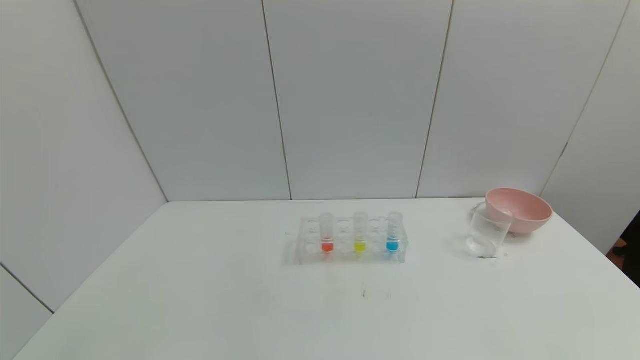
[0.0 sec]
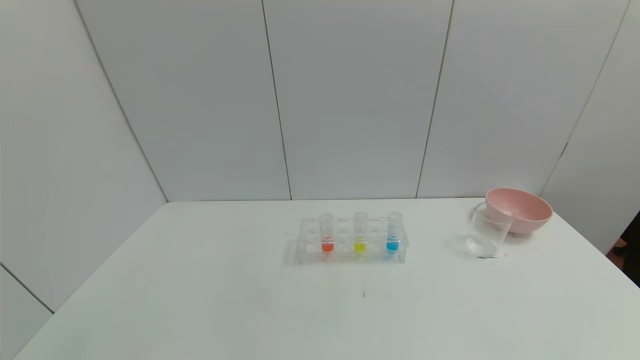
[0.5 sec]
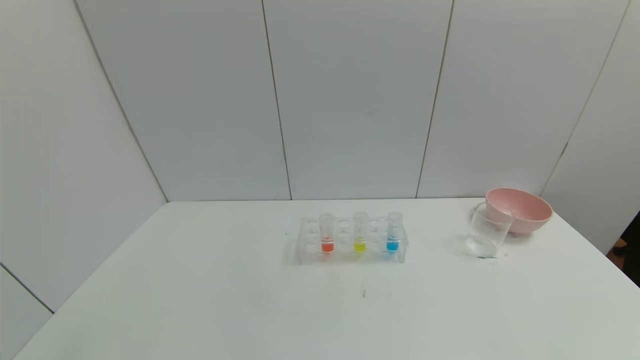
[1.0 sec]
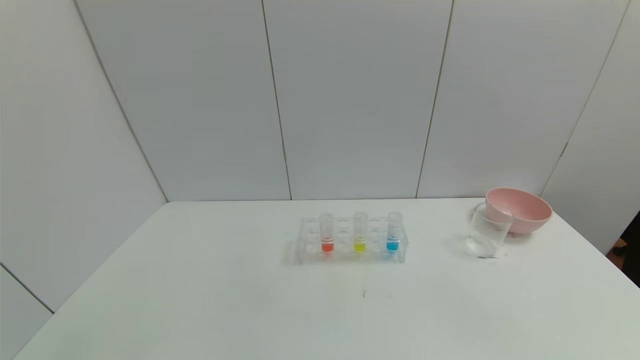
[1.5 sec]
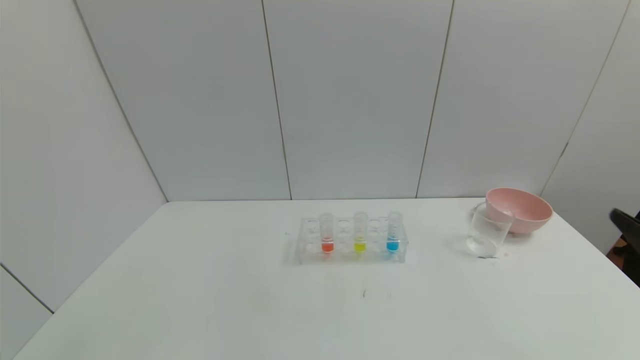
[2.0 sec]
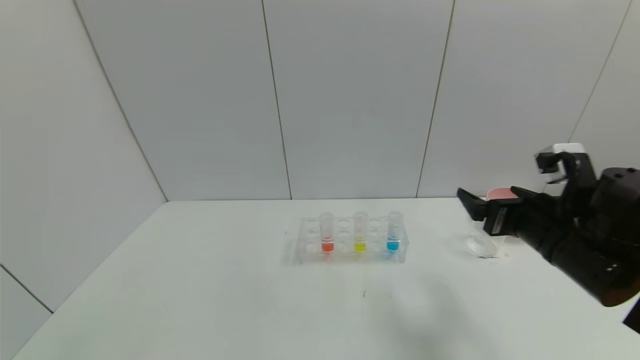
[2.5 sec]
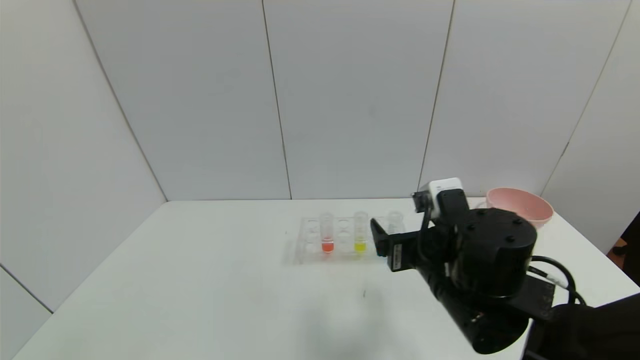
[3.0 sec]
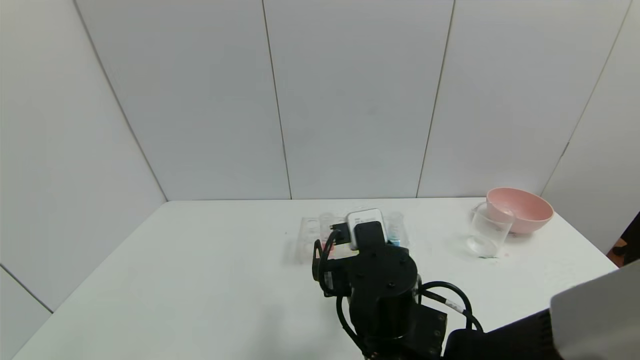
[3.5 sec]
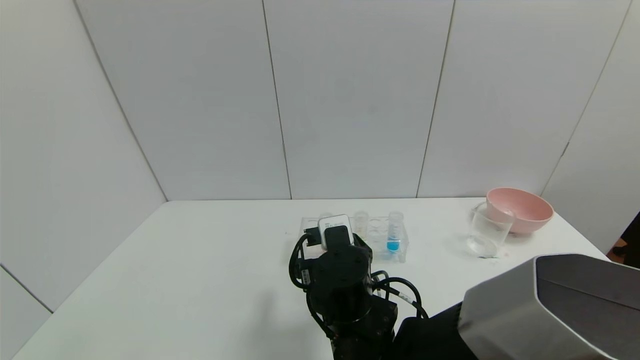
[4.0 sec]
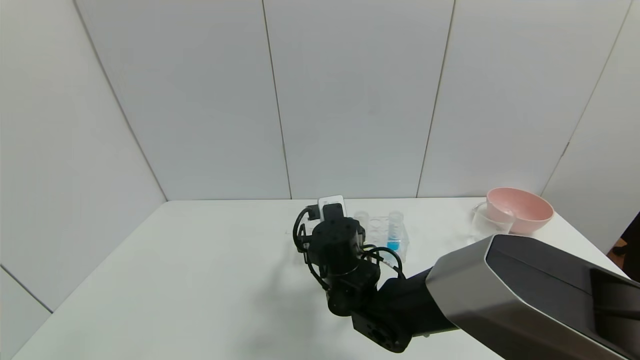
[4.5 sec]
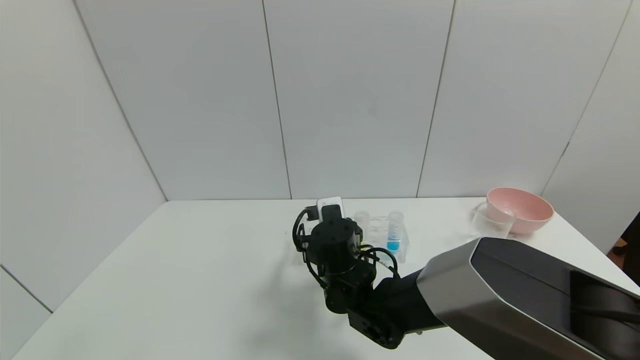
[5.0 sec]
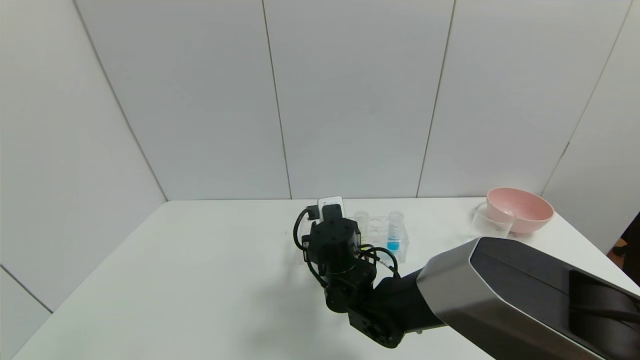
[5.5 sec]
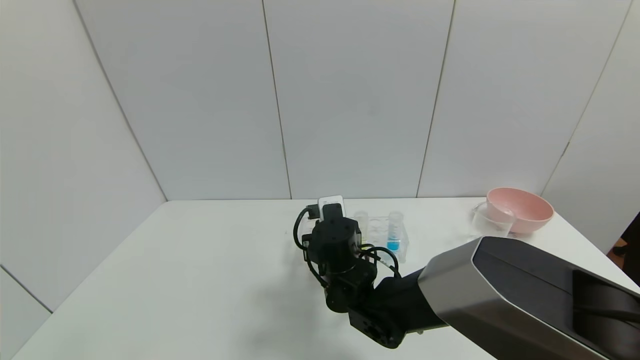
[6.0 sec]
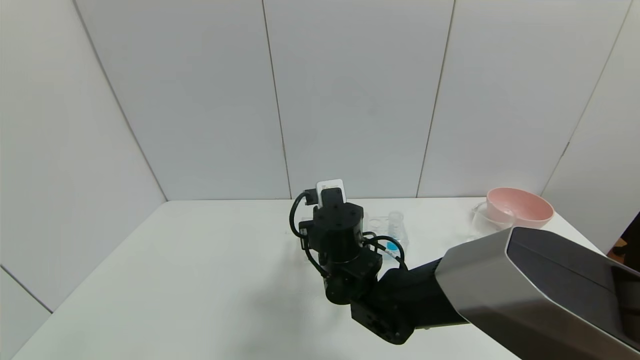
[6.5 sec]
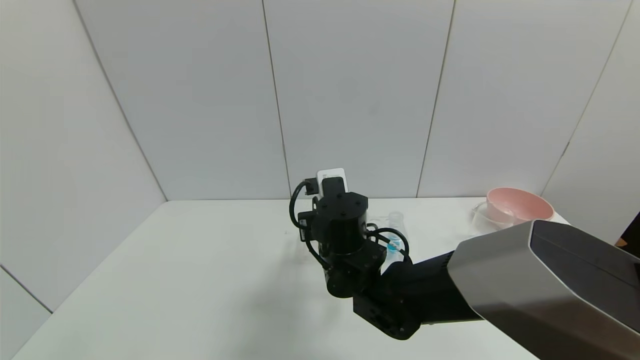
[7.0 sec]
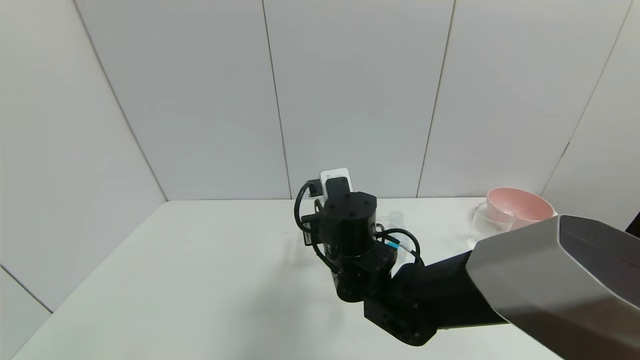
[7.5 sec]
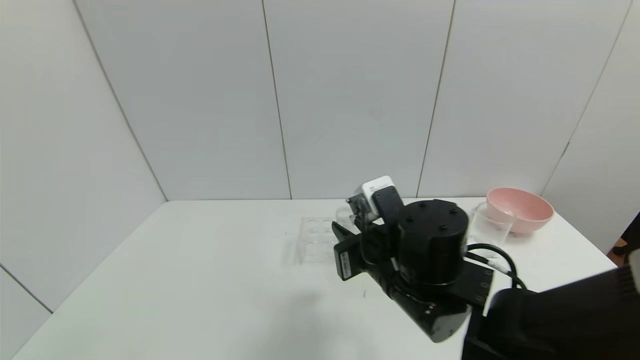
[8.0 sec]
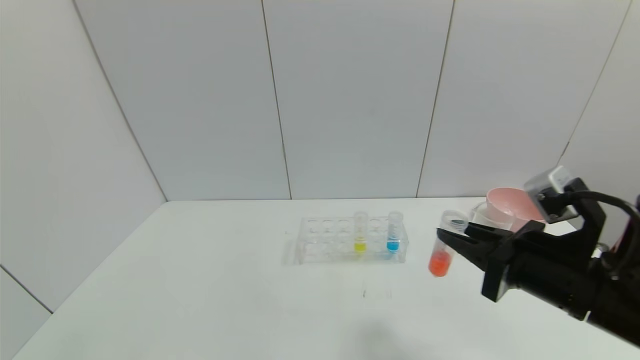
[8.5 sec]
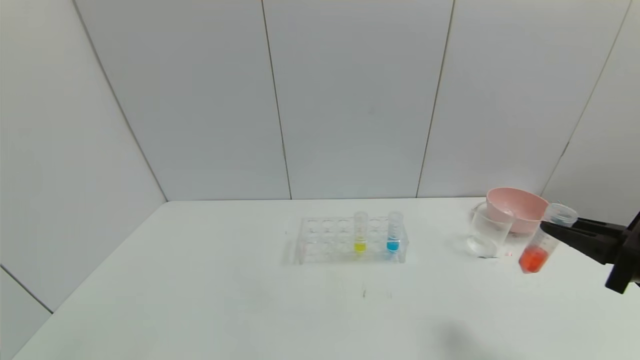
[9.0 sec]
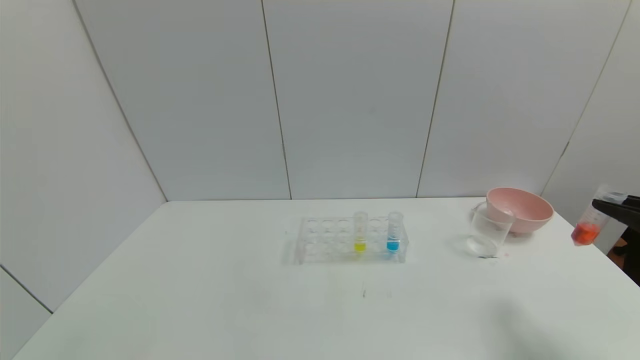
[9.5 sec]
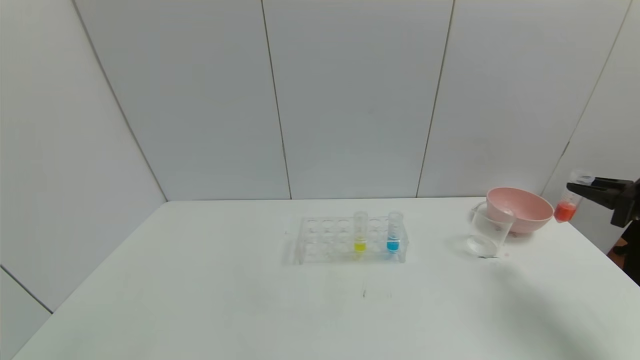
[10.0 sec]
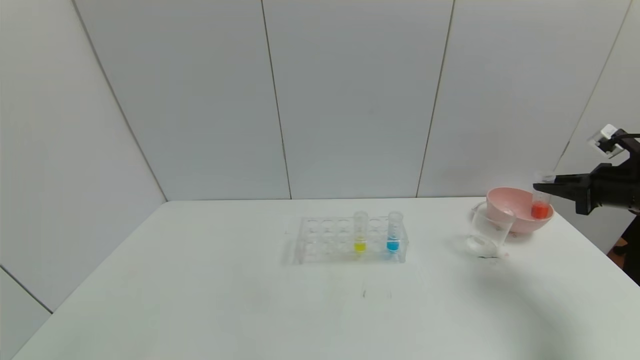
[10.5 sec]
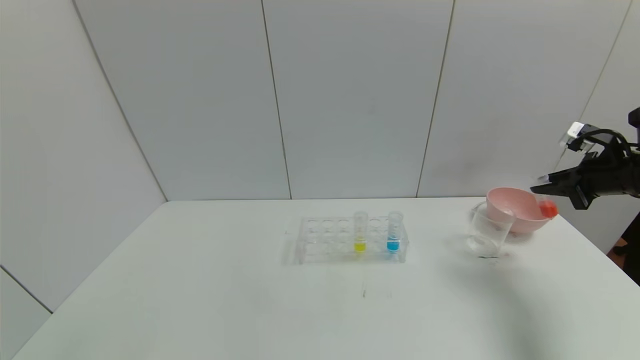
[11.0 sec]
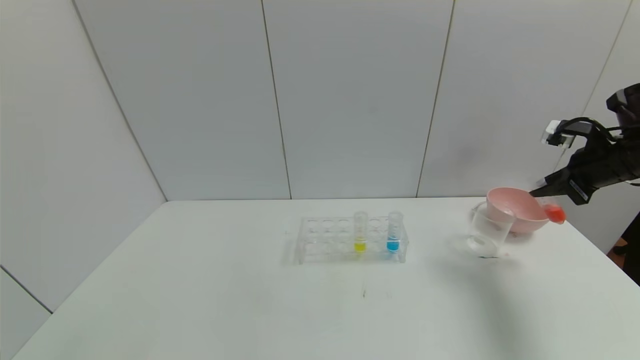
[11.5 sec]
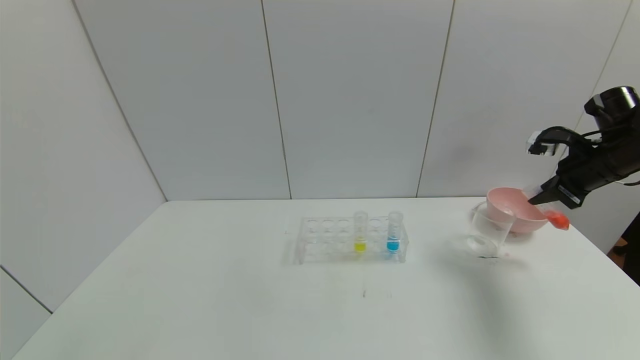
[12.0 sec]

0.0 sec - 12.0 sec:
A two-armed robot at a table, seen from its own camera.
Task of the whole recording: pick up the test tube with red pigment and the test tube with blue pigment by grippers and pour them into the container.
Step, 0.0 sec - 5.5 sec: Grasp the red reagent with the right gripper.
2.0 sec - 4.0 sec: The right gripper shifts roughly 35 cm to the left and forward.
4.0 sec - 6.0 sec: The right gripper goes some 5 cm forward, and closes its fingers.
6.0 sec - 8.0 sec: The right gripper travels to the right, backward and upward by approximately 15 cm.
8.0 sec - 10.0 sec: The right gripper travels to the right by about 40 cm.
10.0 sec - 12.0 sec: The right gripper goes some 10 cm forward and to the left.

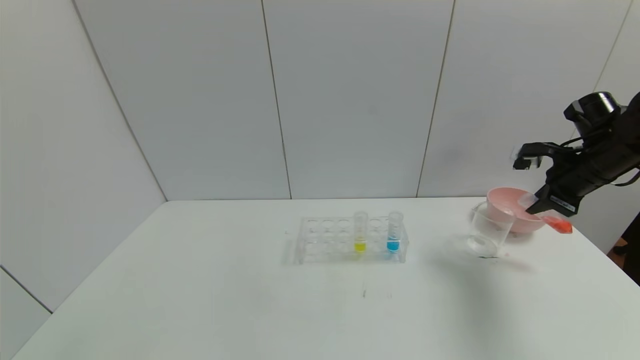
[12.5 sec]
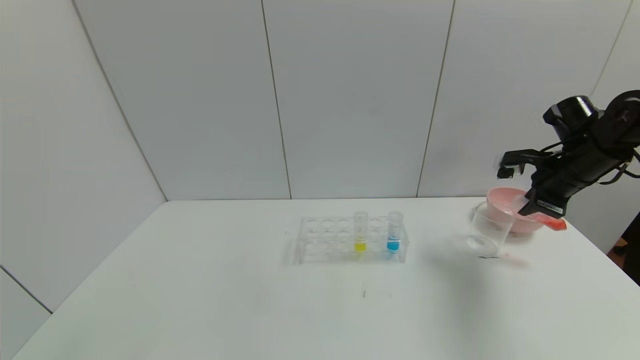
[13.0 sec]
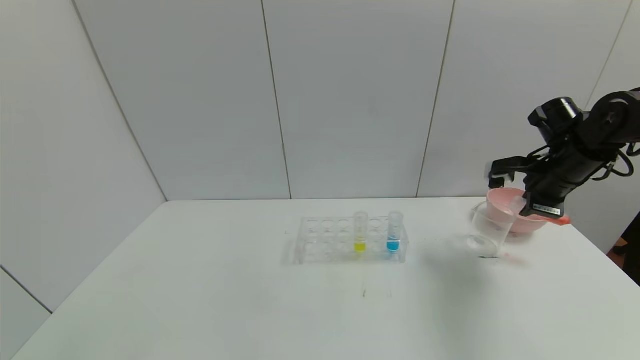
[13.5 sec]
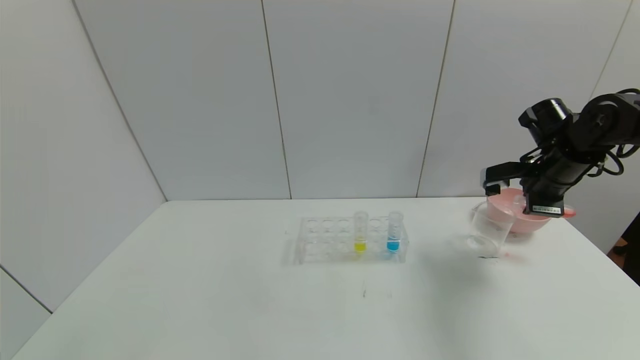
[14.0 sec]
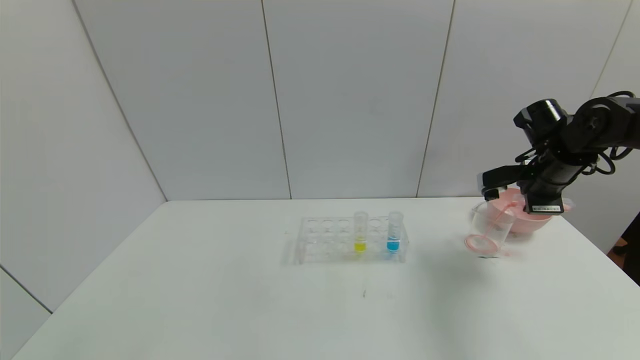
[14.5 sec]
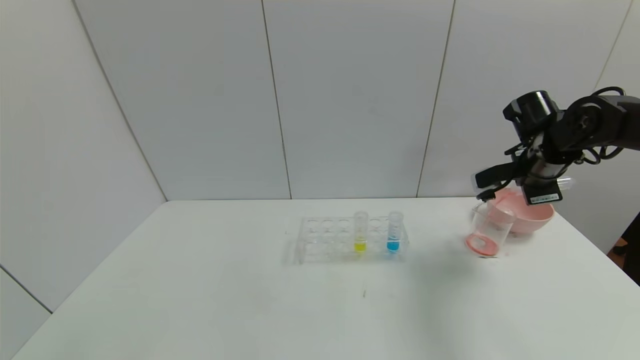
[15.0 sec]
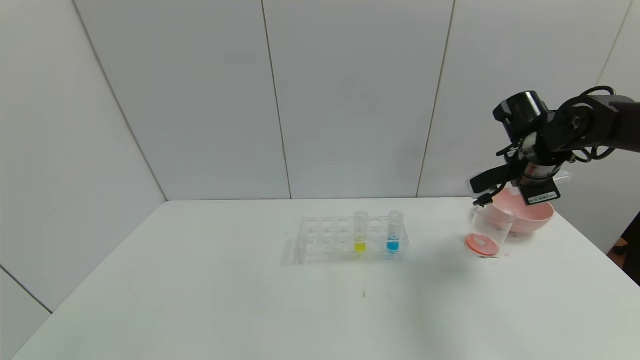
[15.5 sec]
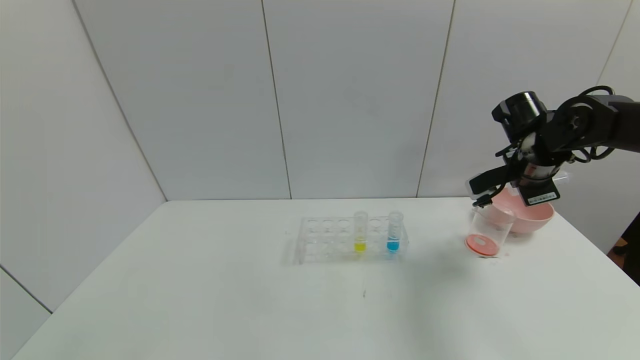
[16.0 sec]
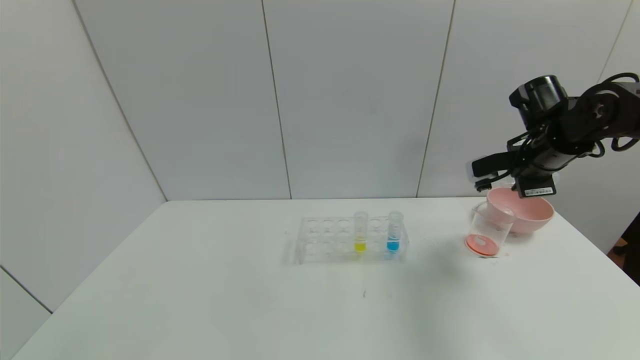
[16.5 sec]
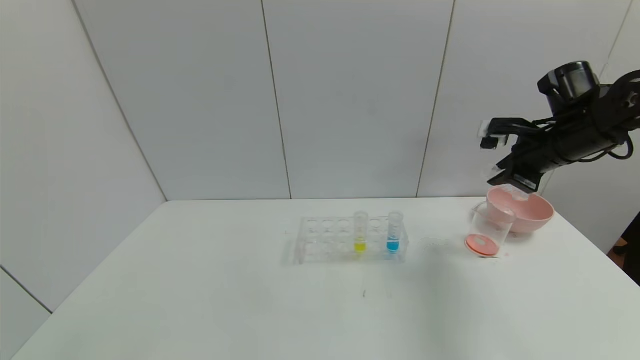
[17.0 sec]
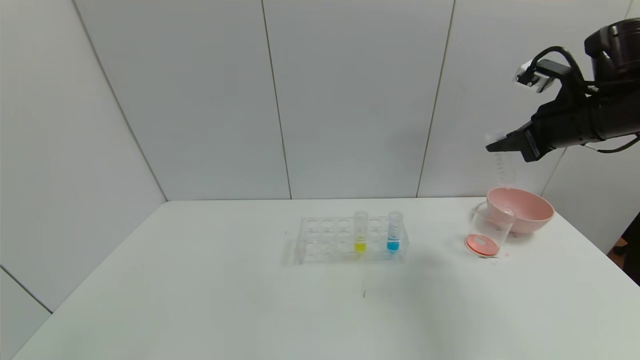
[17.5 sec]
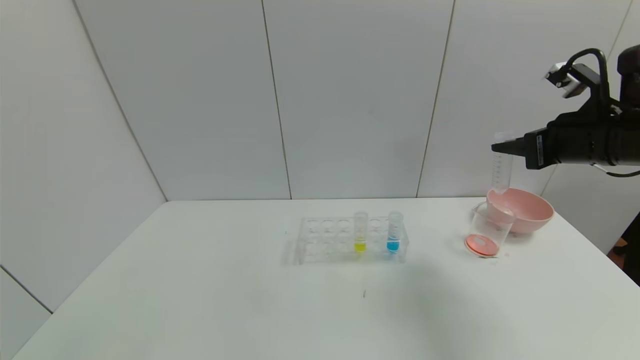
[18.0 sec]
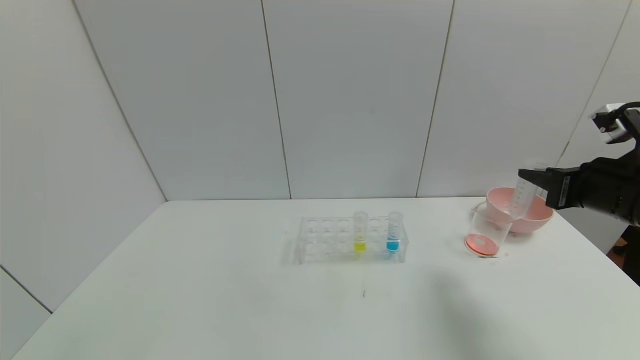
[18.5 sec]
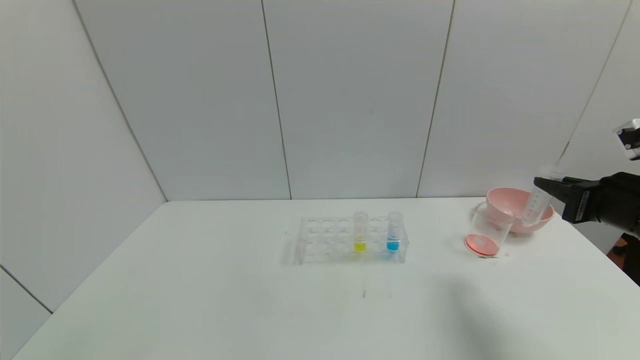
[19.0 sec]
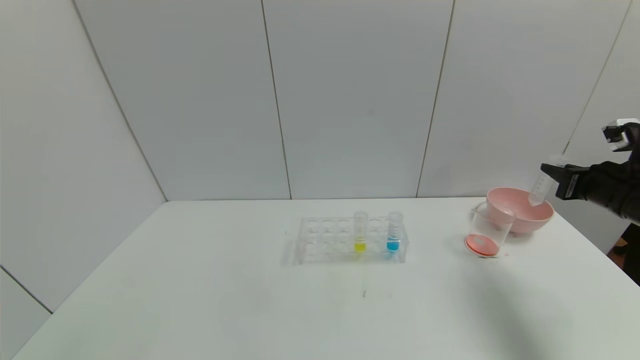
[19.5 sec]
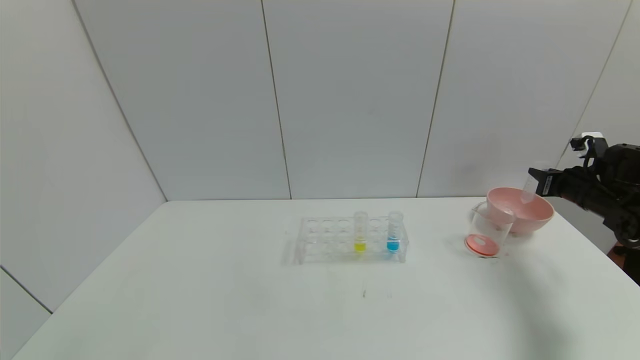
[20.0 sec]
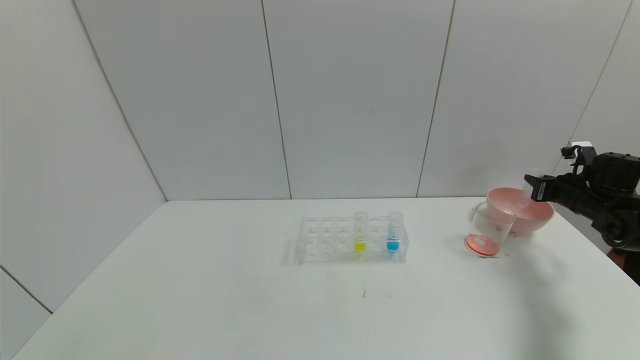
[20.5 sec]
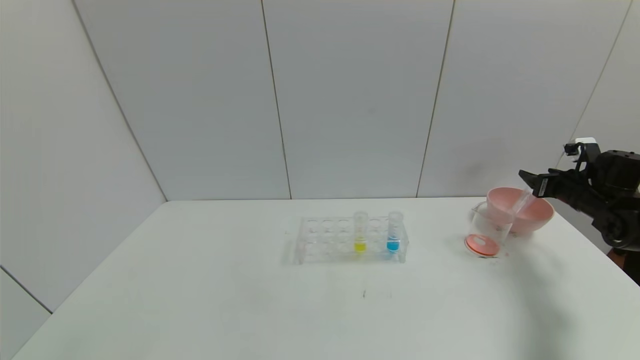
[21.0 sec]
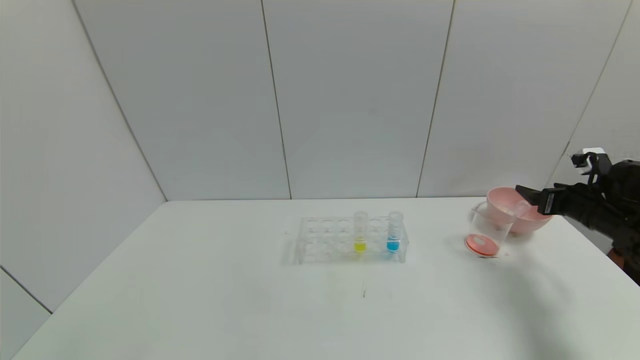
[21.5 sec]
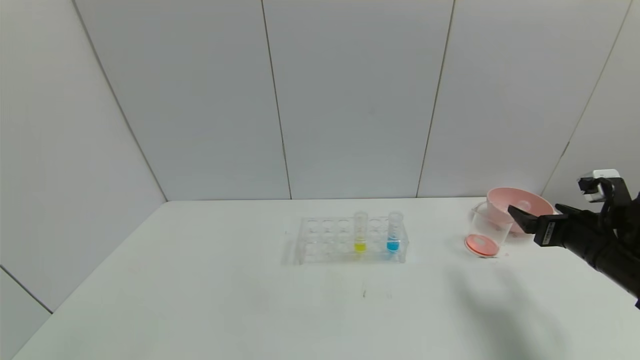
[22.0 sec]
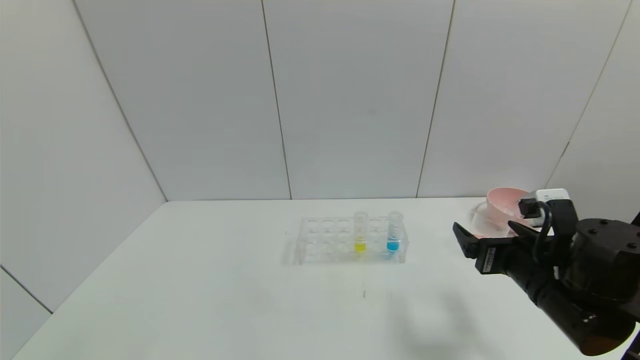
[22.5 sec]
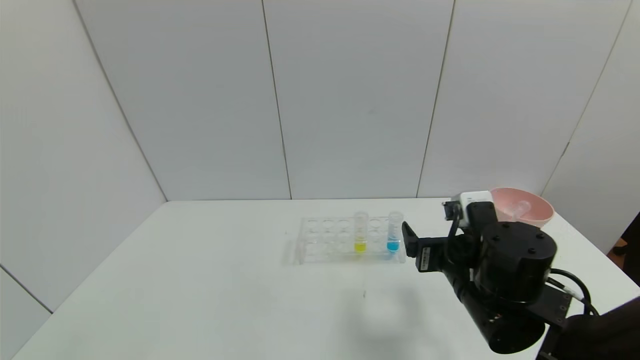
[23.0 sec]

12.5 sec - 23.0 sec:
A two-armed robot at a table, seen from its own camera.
Task of the whole recording: pick up the test tube with red pigment and the test tube with blue pigment by grippers and pour them into the container.
Step, 12.5 sec - 15.0 sec: Pour the red reagent into the graduated cylinder with the right gripper.
Step, 15.5 sec - 21.0 sec: Place the test tube into the bowl with the right gripper.
12.5 sec - 14.5 sec: The right gripper moves to the left, about 5 cm.
14.5 sec - 16.5 sec: The grippers move only a little.
16.5 sec - 19.0 sec: The right gripper shifts approximately 15 cm backward.
19.0 sec - 21.0 sec: The right gripper goes approximately 20 cm forward, to the right and downward, and opens.
21.0 sec - 23.0 sec: The right gripper shifts some 35 cm to the left and backward.
